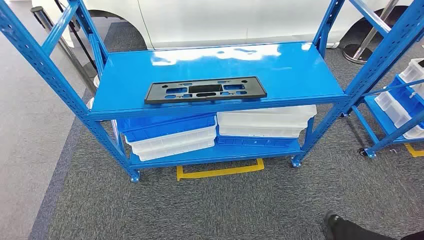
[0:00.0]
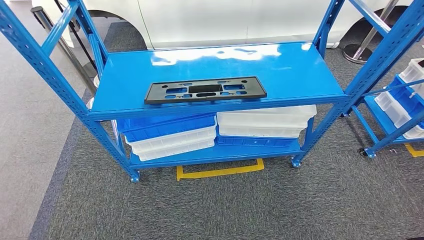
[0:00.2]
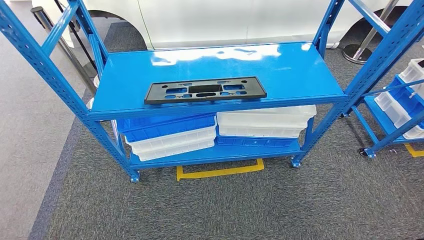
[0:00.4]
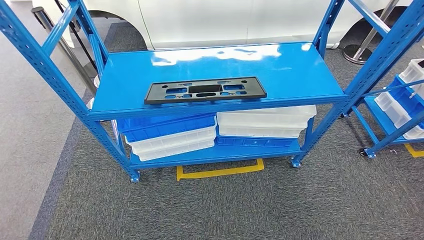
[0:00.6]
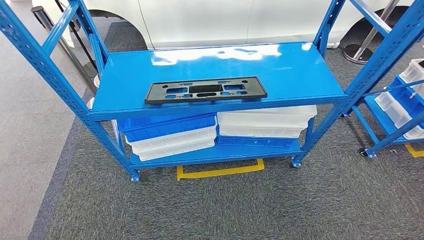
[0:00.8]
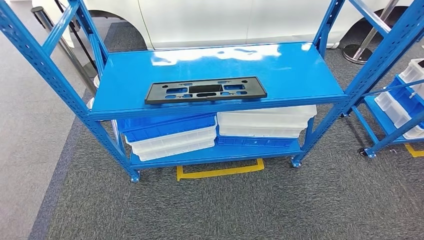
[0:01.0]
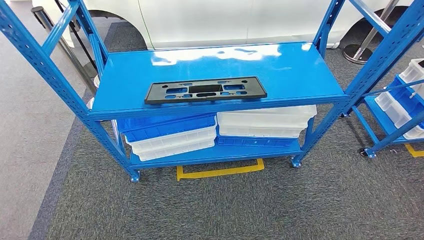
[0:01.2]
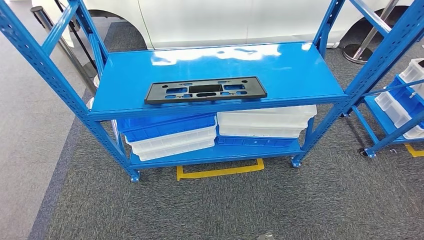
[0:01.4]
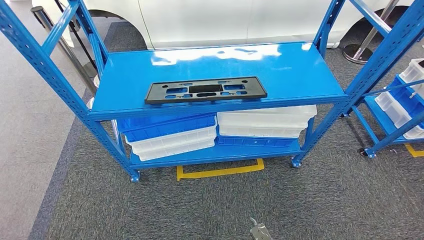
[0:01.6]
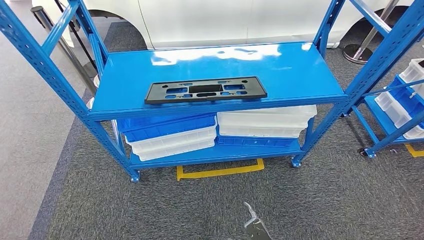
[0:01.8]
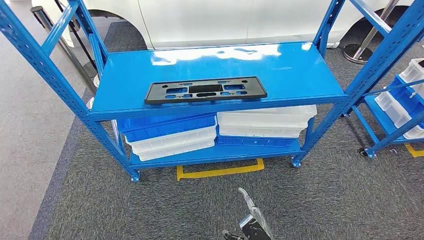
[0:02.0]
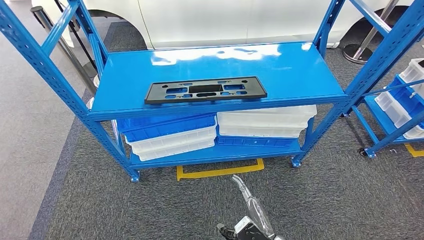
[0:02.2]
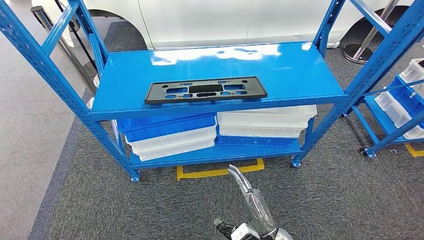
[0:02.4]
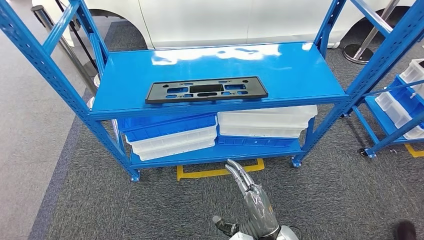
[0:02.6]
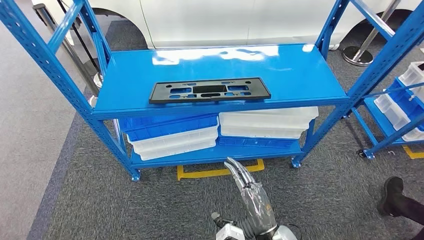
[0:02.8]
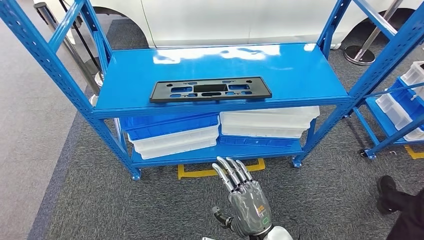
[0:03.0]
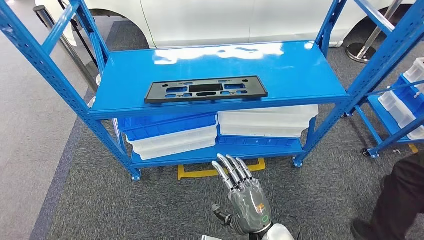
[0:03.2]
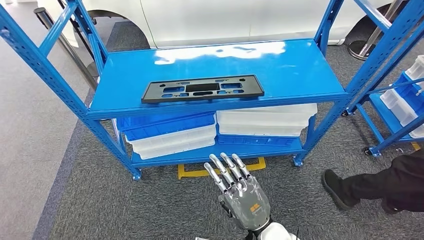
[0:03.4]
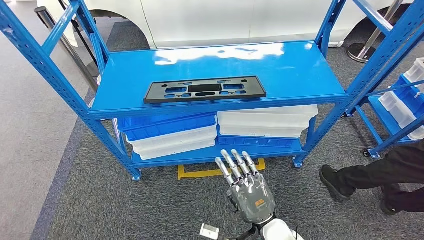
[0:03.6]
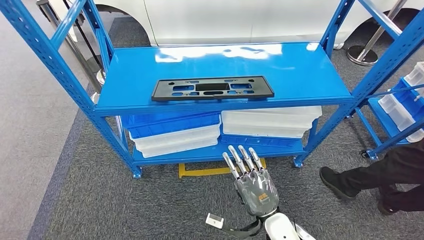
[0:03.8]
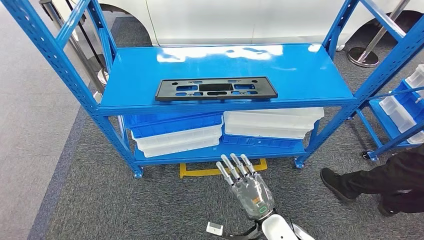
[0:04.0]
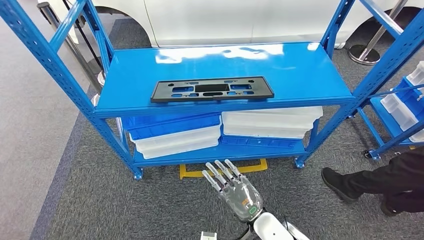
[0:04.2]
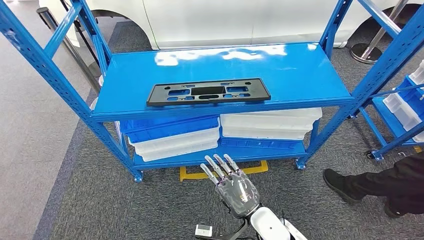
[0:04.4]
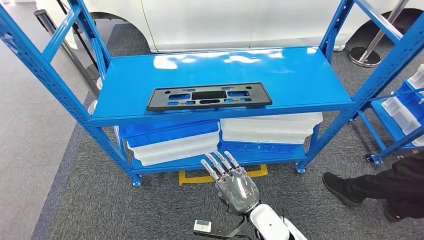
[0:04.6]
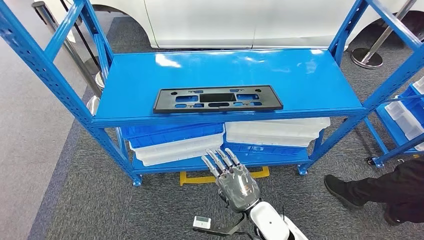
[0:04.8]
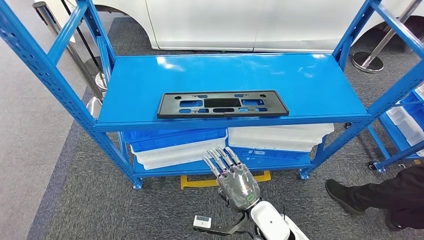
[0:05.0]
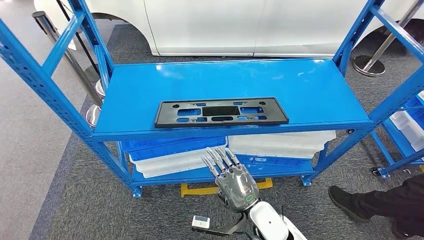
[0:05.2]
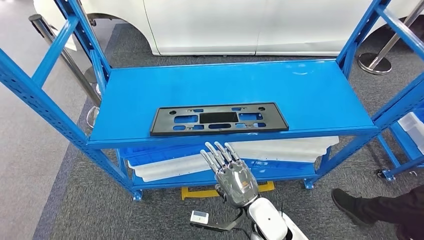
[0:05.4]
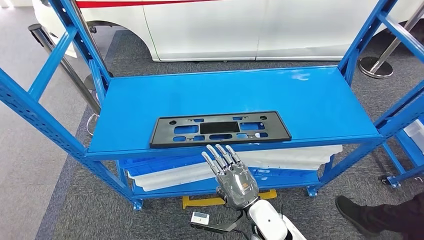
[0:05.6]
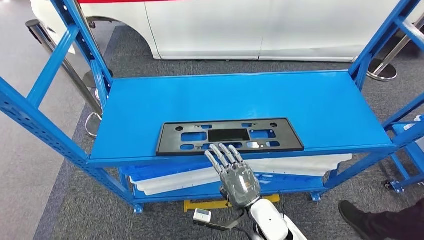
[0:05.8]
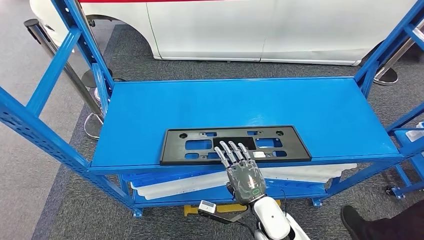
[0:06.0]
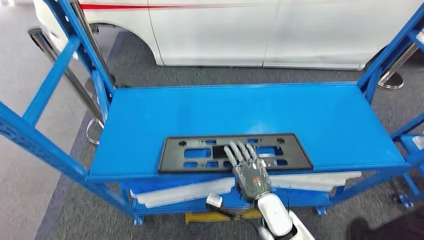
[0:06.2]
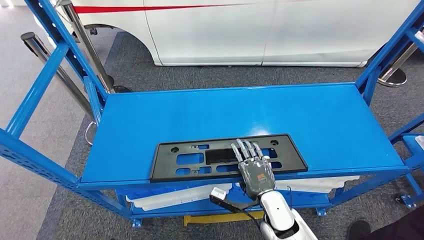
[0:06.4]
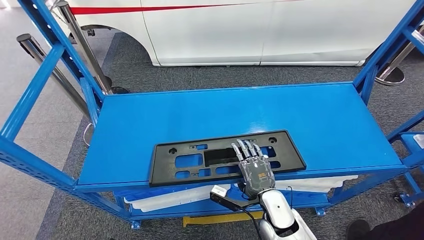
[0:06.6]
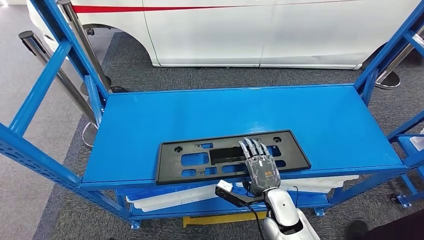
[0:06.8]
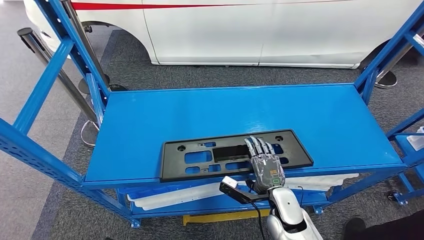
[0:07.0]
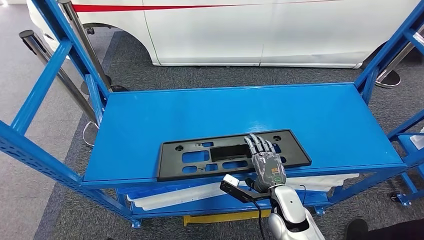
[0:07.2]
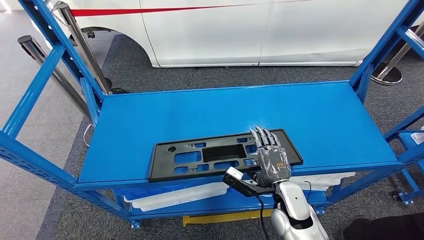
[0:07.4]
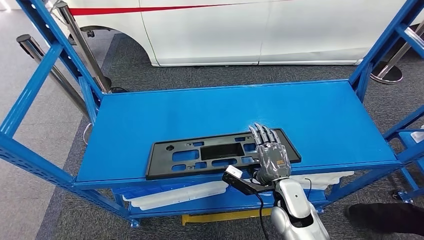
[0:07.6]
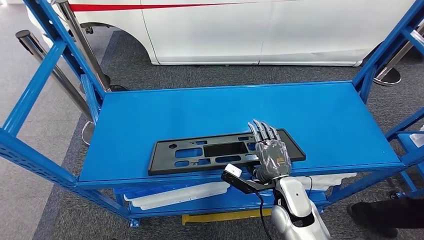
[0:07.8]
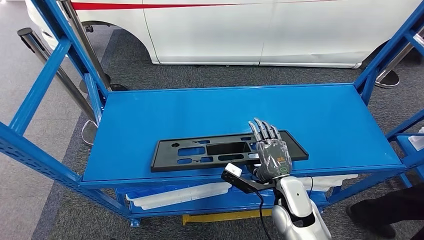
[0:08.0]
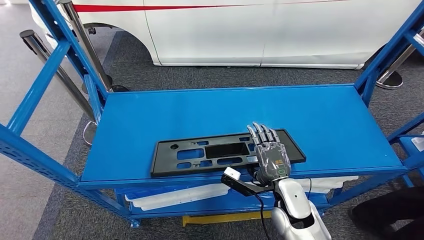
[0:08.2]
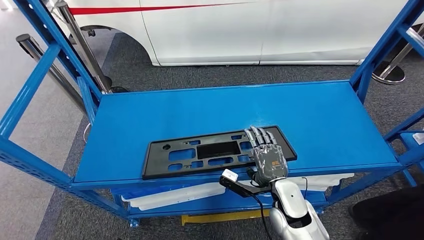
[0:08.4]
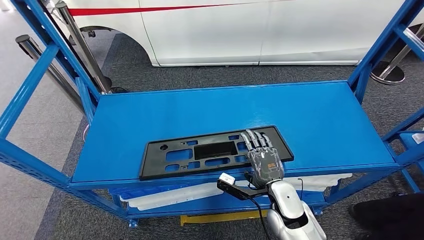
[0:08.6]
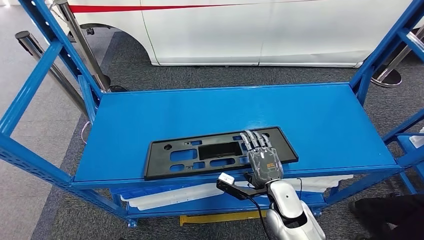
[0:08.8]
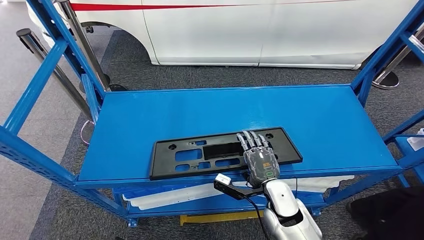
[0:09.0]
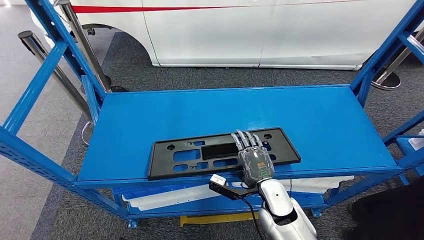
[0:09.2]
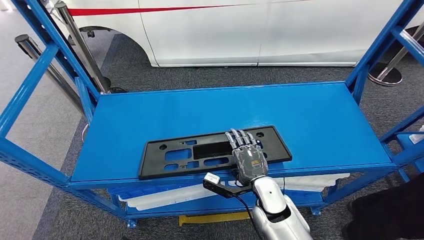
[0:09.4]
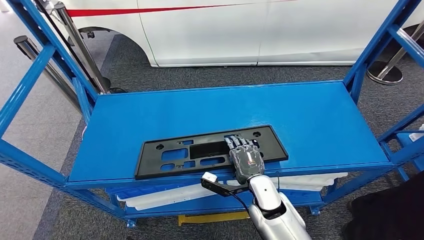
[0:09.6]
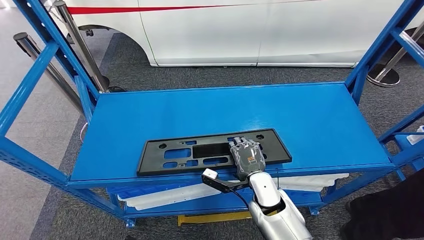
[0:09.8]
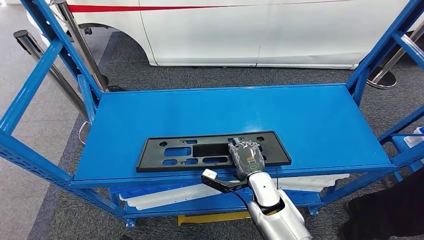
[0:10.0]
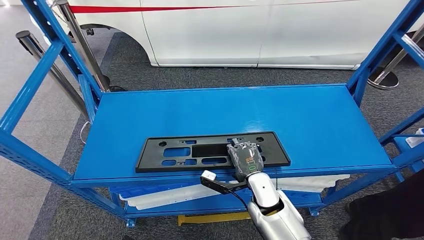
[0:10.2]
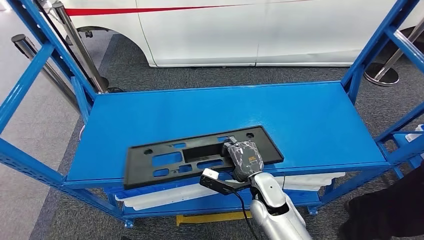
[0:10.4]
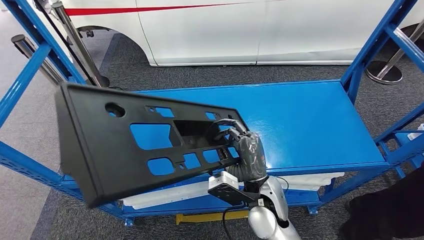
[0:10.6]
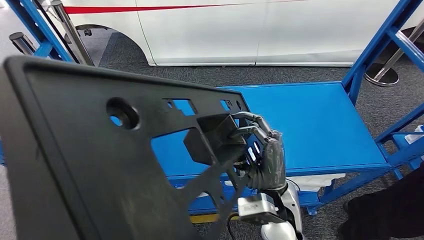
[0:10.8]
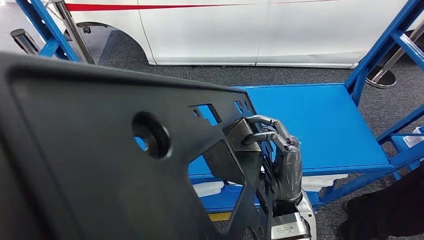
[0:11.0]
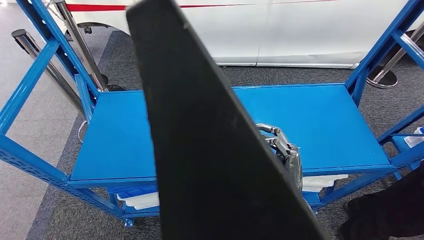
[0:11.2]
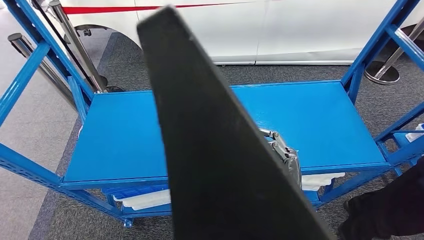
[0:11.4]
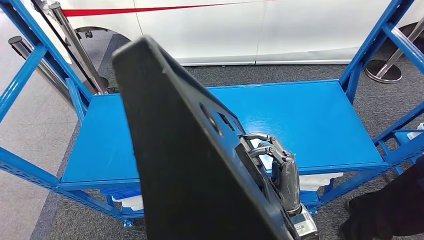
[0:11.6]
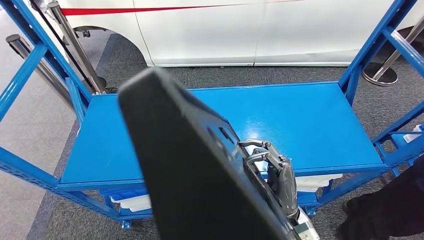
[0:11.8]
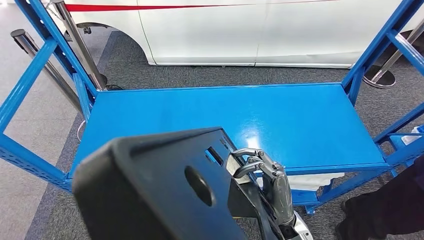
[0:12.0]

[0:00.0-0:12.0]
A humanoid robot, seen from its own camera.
Step, 0:00.0 to 0:11.6: Pick up the large material from the shelf.
0:01.6 to 0:03.0: The right hand is displaced upward by about 20 cm.

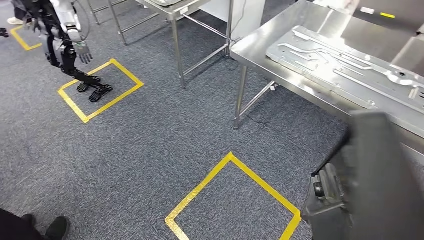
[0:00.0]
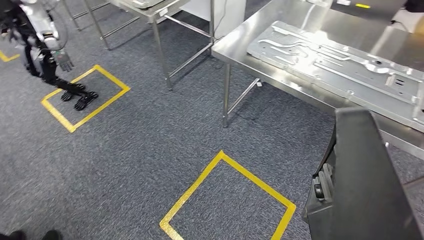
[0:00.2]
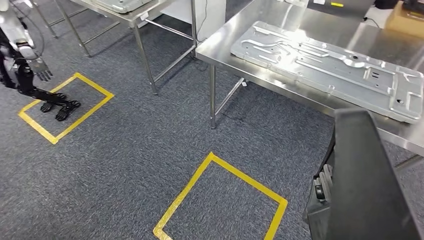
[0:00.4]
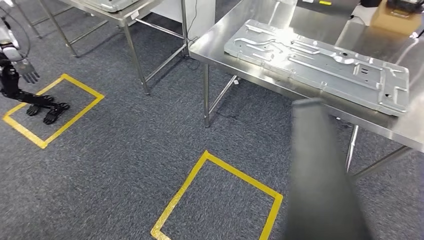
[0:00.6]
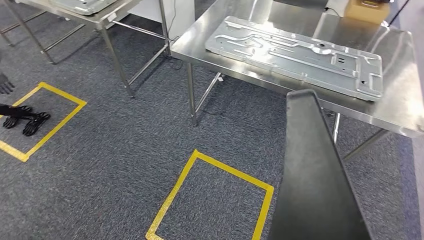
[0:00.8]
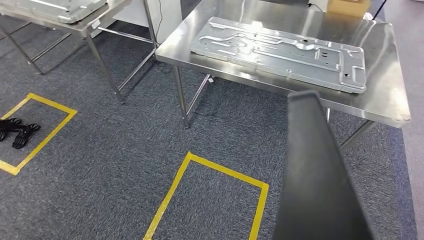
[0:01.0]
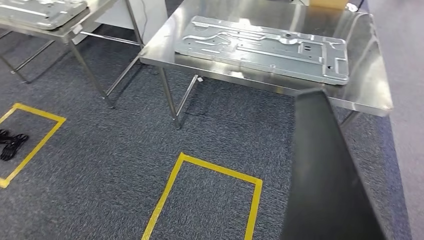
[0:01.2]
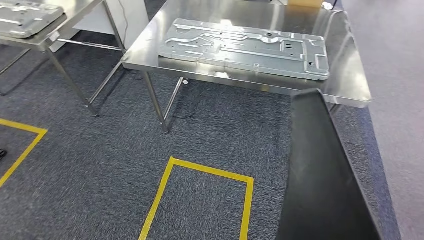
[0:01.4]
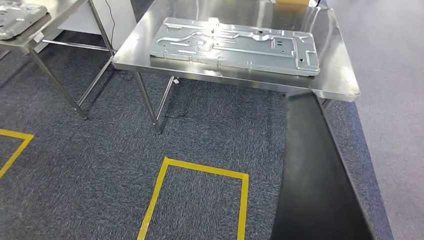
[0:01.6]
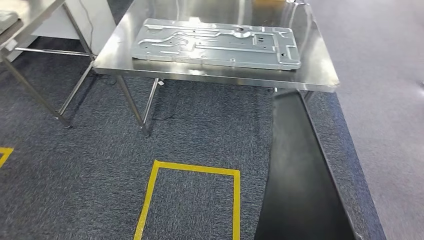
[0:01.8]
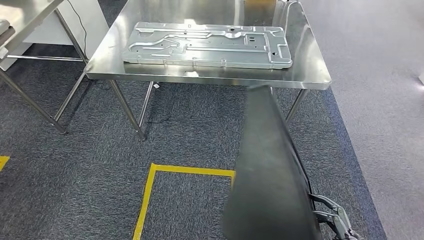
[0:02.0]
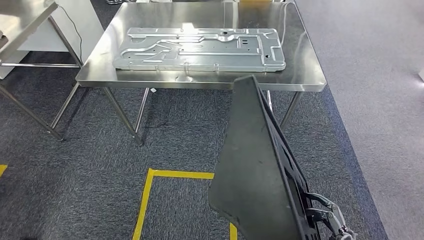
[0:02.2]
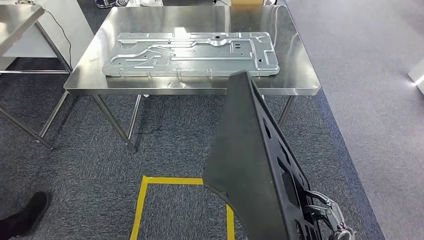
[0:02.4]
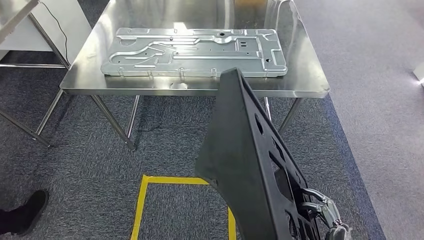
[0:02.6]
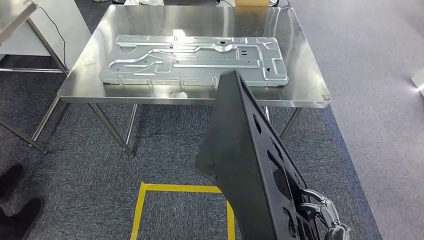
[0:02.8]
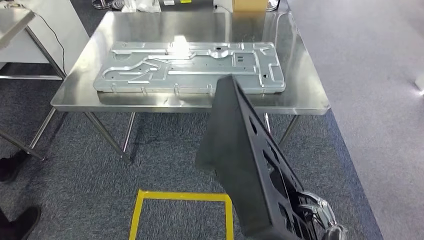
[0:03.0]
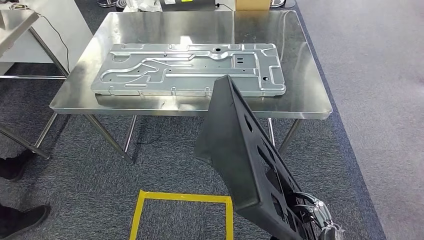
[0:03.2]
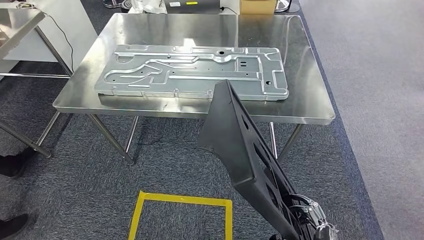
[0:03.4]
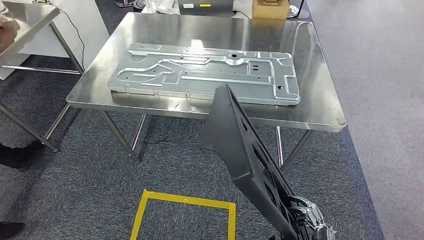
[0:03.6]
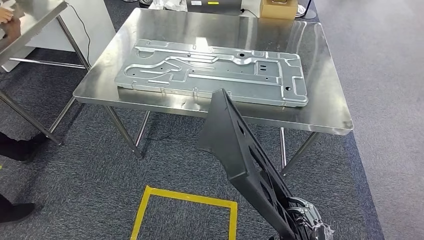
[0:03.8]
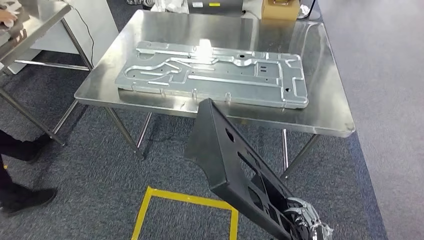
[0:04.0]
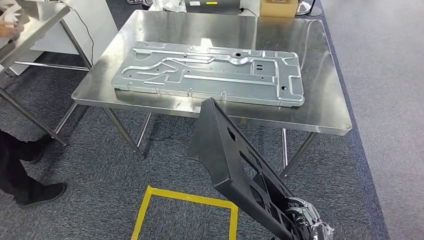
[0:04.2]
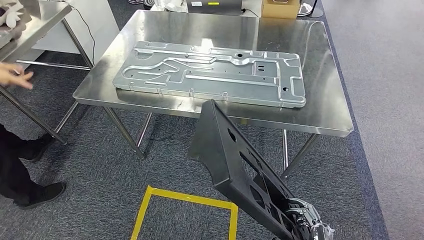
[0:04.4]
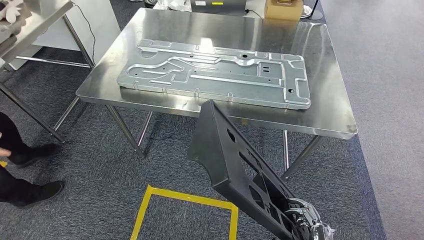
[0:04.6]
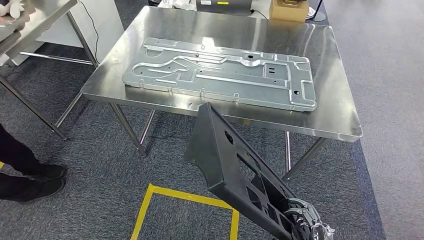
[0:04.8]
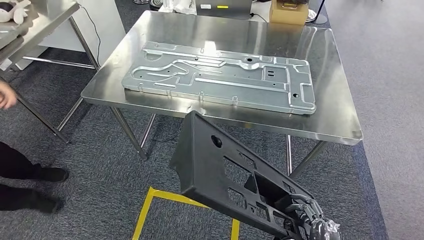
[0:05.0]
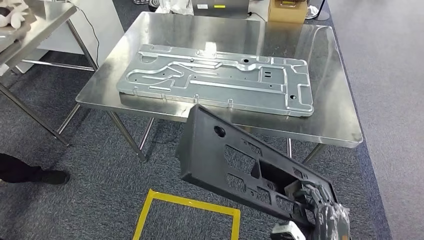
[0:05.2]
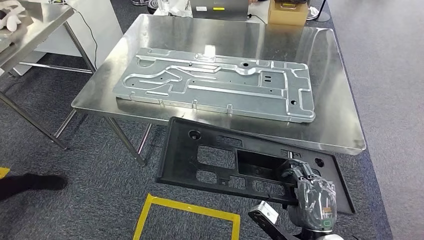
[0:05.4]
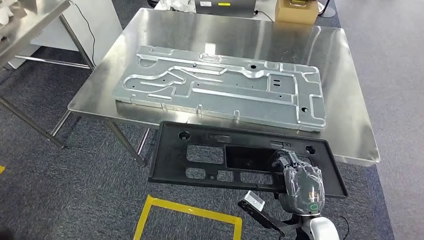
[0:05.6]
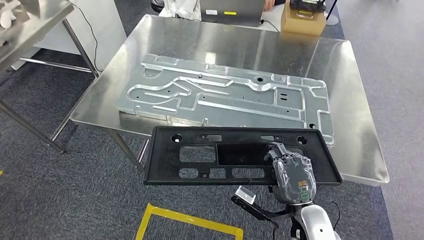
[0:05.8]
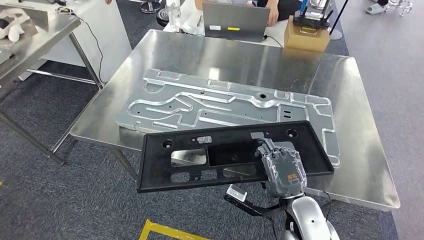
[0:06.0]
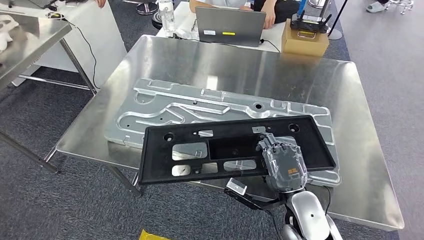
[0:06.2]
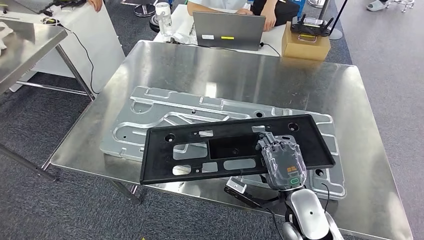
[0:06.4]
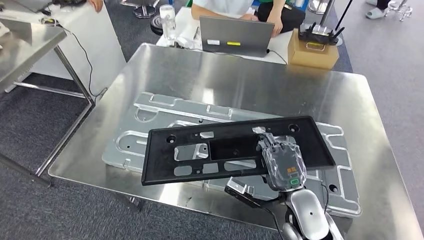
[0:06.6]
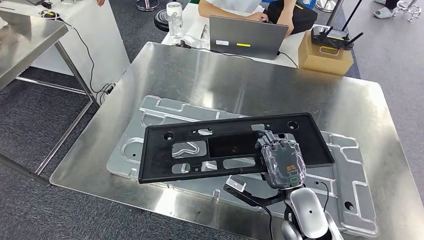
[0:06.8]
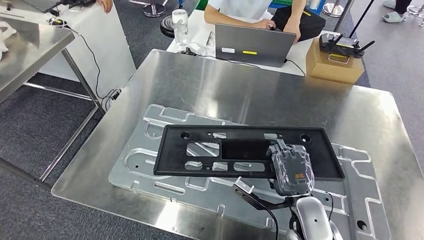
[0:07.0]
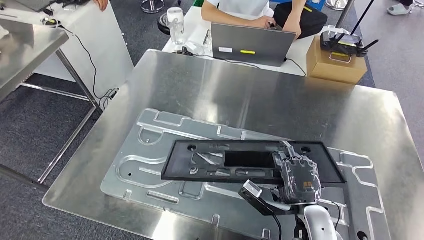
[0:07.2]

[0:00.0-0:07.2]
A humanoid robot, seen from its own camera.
Step, 0:00.0 to 0:05.8: Move the large material to the workbench.
